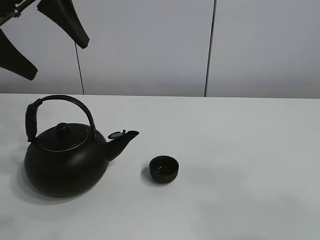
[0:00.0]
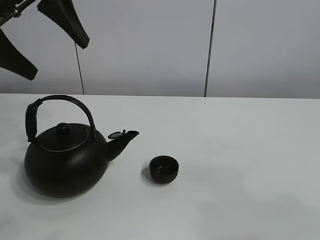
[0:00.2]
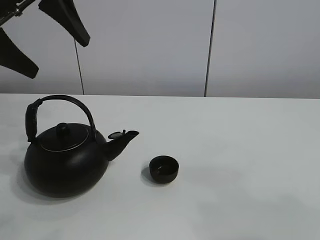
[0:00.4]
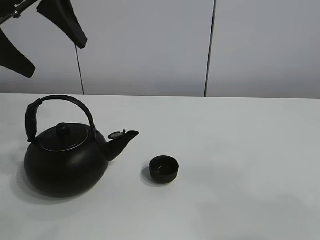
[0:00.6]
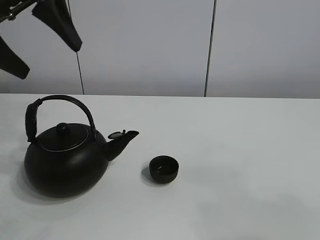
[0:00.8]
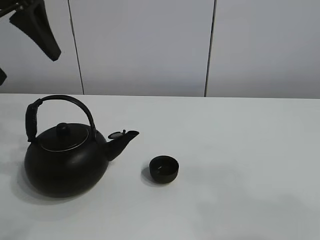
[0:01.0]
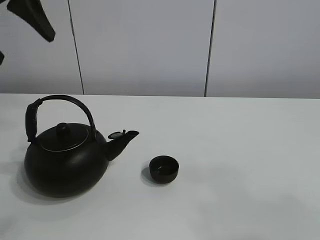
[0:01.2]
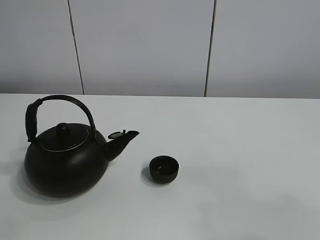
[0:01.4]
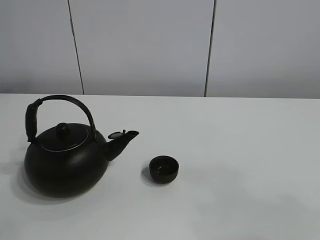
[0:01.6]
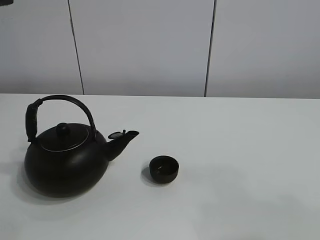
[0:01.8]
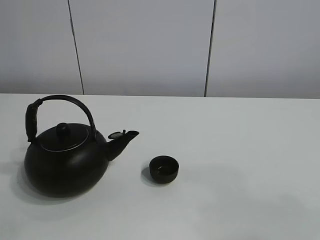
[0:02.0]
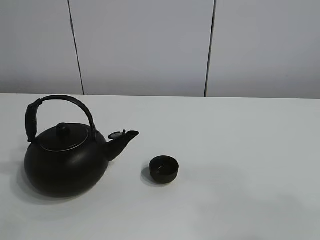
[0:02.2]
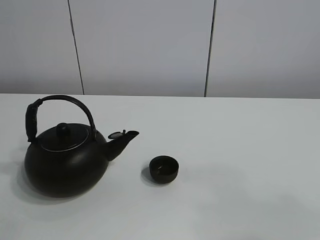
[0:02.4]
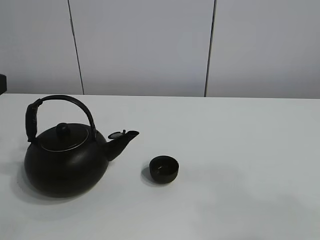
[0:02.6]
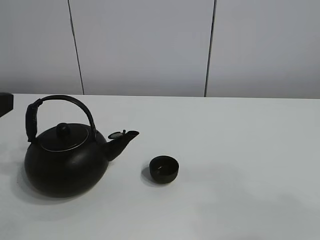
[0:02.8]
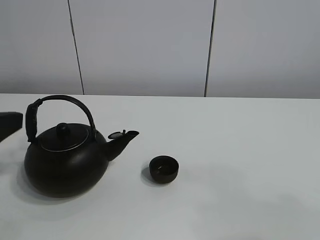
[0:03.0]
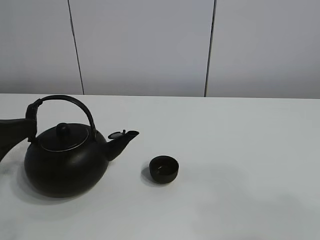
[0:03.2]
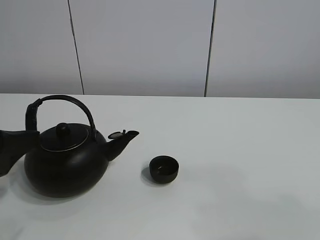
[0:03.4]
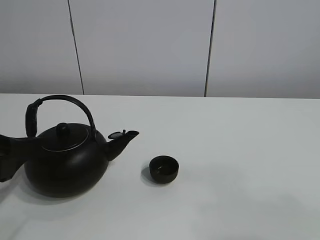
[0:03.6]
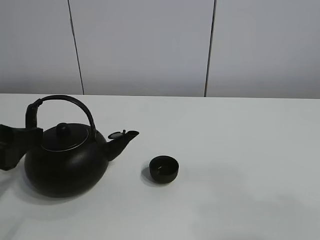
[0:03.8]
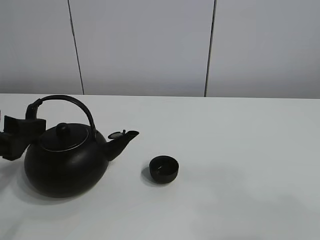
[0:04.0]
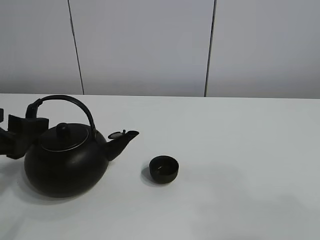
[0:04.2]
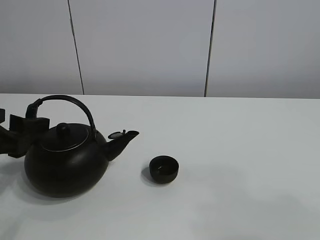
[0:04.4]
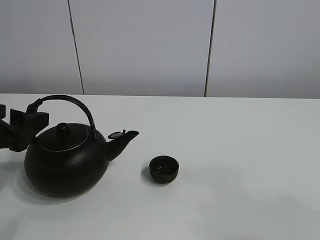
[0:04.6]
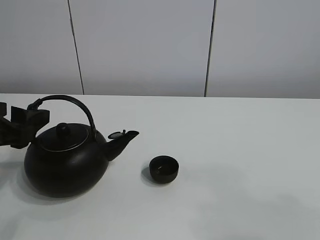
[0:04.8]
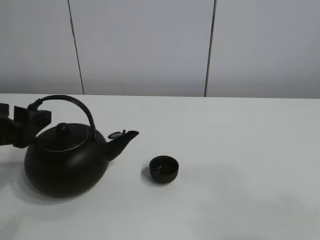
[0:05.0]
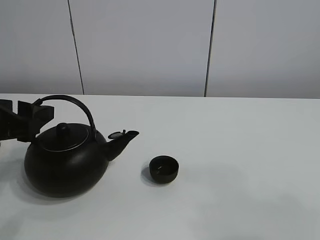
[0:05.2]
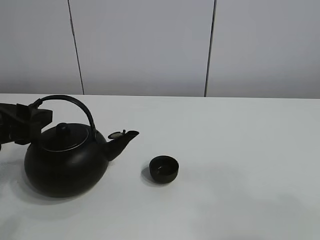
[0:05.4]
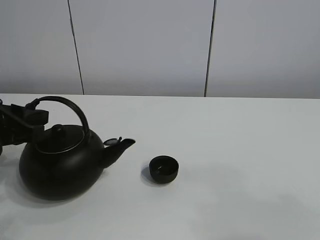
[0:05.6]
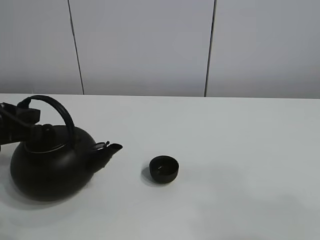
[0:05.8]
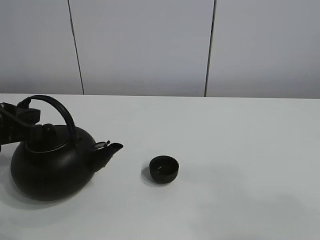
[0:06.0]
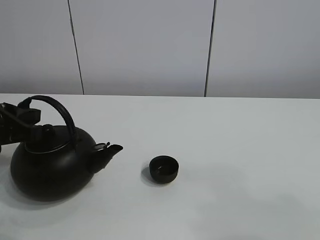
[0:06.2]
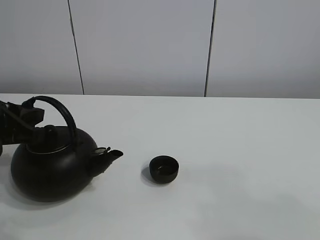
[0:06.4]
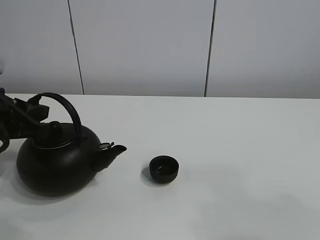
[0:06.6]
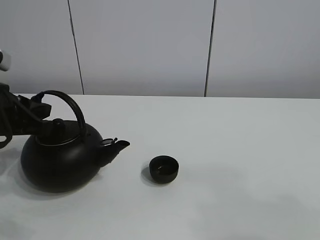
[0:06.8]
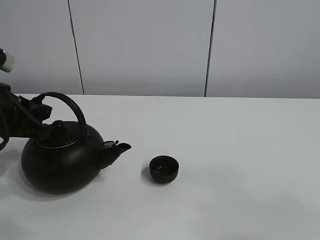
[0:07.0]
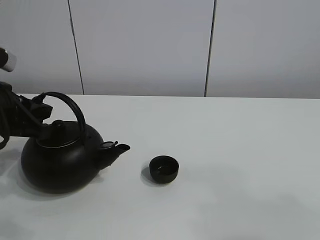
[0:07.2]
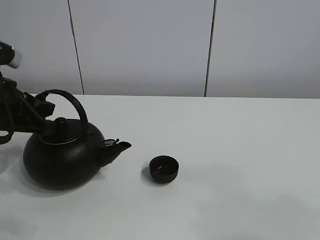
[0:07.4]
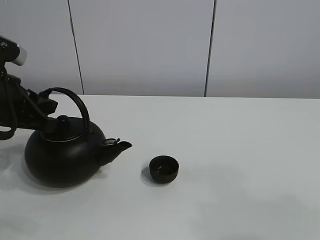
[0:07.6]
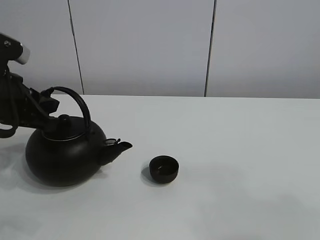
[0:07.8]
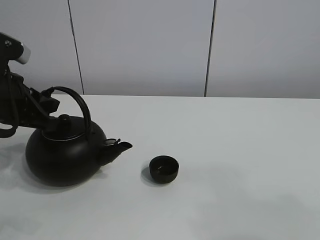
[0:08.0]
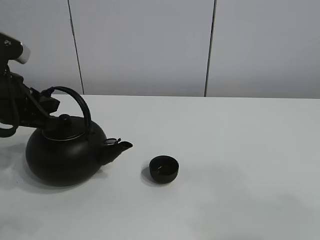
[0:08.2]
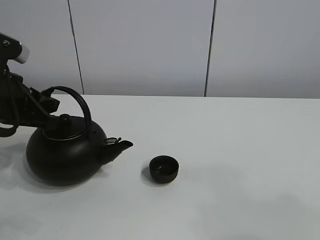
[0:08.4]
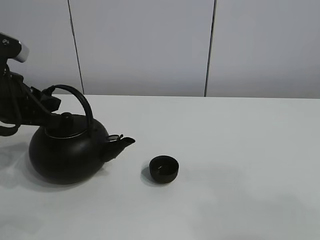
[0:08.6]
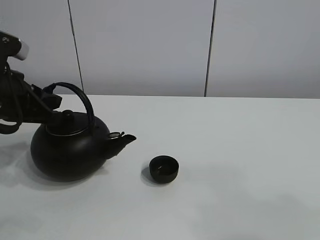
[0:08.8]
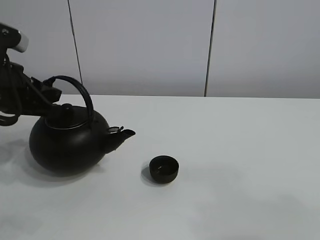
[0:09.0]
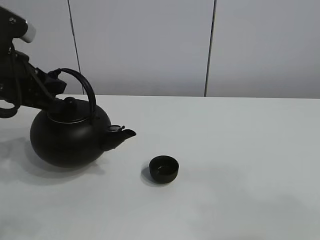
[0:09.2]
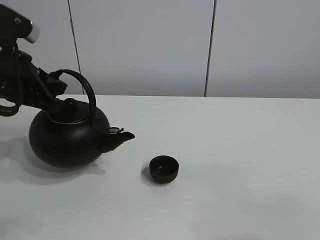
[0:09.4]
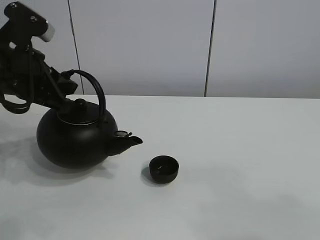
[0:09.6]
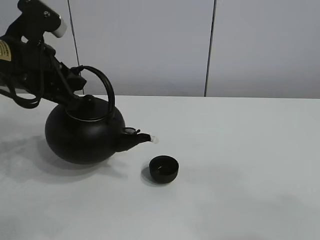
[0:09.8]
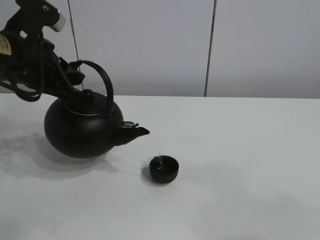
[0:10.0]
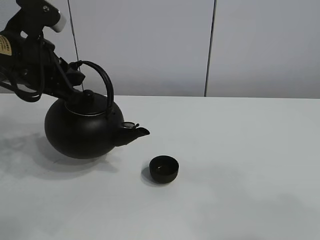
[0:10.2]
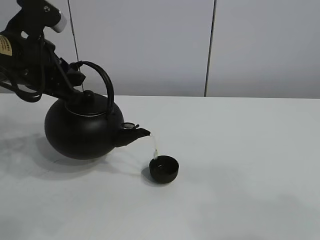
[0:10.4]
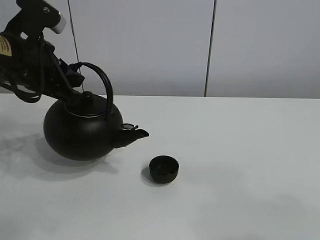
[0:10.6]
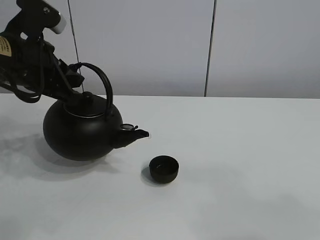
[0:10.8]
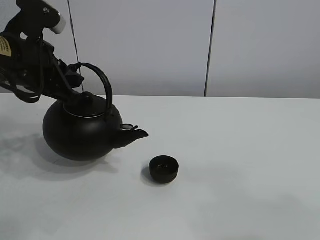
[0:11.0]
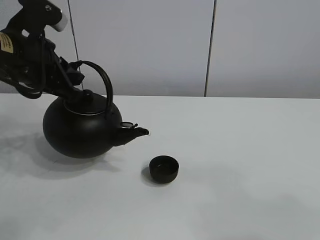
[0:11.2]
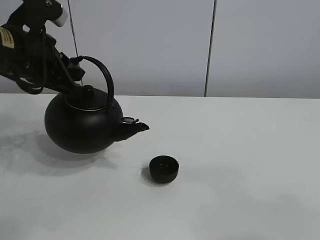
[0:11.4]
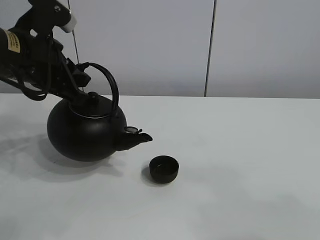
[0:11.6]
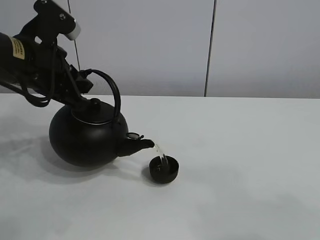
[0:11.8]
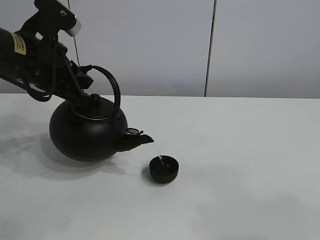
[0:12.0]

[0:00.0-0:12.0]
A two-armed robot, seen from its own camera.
Task of the whole recording: pour tea into the teacup.
Step, 0:00.0 to 0:08.8: Pick up the teapot with the left gripper.
0:00.0 to 0:01.6: The left gripper shifts some 5 cm to the left.
0:01.6 to 0:03.0: The left gripper heads downward and backward, covering some 20 cm.
0:03.0 to 0:04.4: The left gripper shifts by roughly 5 cm.
0:04.4 to 0:06.0: The left gripper closes its fingers.
0:06.0 to 0:07.6: The grippers move only a little.
0:07.6 to 0:09.0: The grippers make only small movements.
0:09.0 to 0:10.4: The left gripper moves approximately 5 cm.
0:10.4 to 0:12.0: The grippers make only small movements.

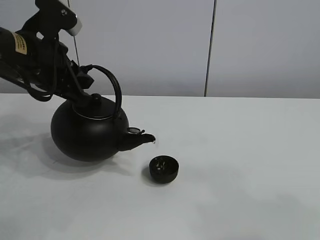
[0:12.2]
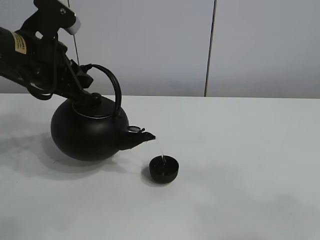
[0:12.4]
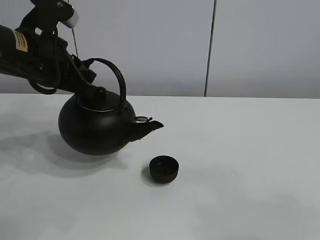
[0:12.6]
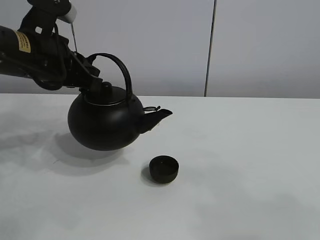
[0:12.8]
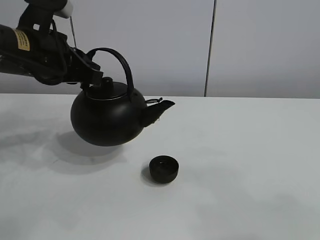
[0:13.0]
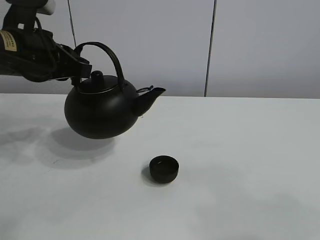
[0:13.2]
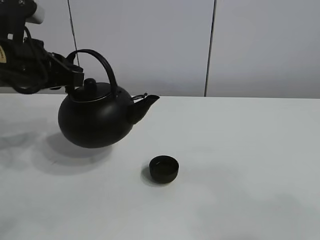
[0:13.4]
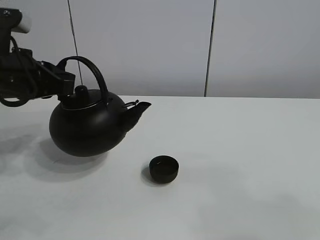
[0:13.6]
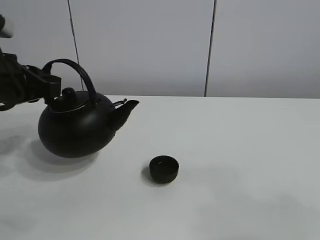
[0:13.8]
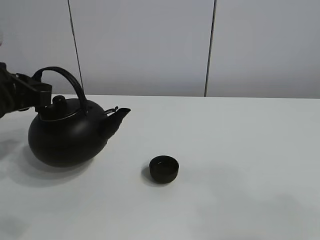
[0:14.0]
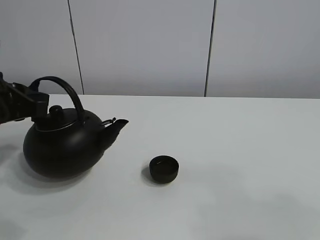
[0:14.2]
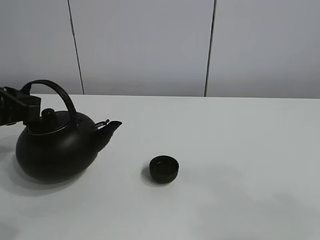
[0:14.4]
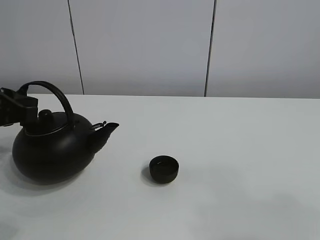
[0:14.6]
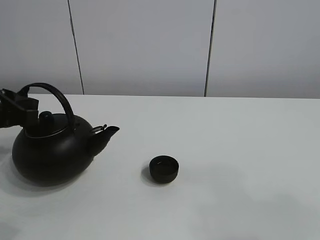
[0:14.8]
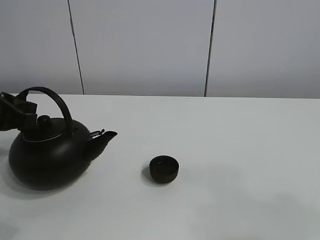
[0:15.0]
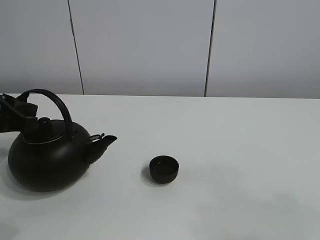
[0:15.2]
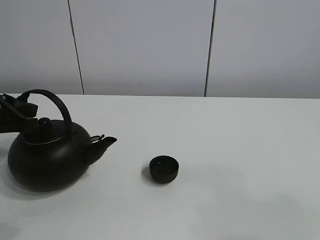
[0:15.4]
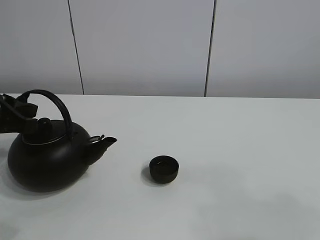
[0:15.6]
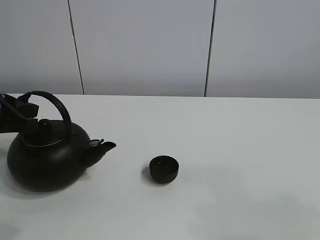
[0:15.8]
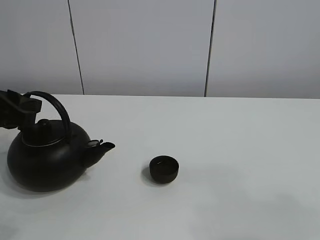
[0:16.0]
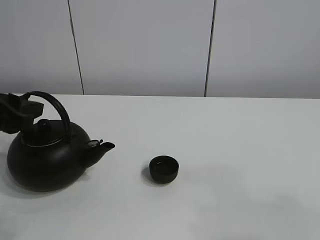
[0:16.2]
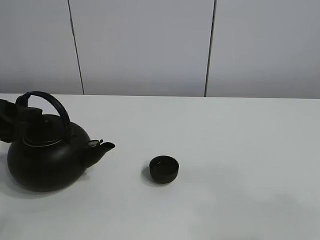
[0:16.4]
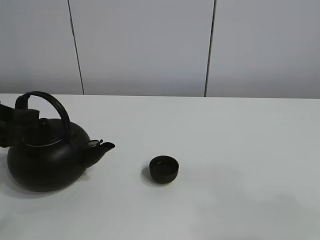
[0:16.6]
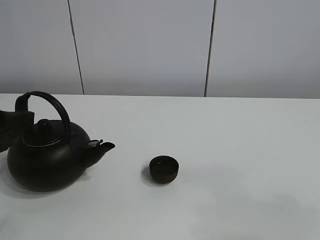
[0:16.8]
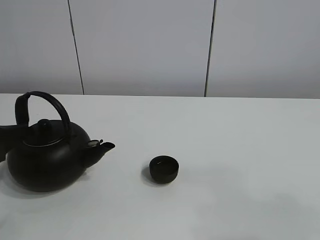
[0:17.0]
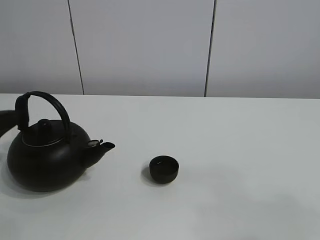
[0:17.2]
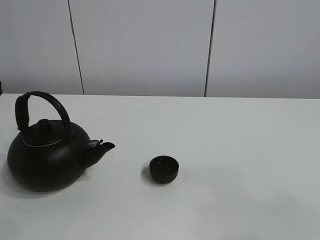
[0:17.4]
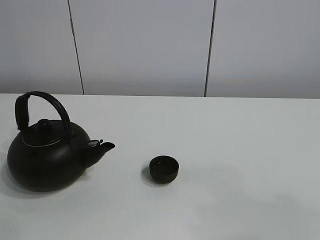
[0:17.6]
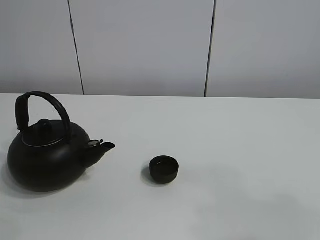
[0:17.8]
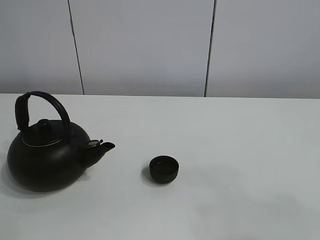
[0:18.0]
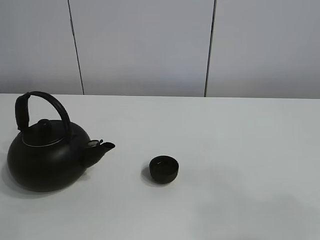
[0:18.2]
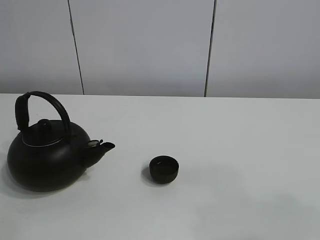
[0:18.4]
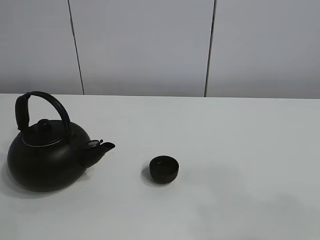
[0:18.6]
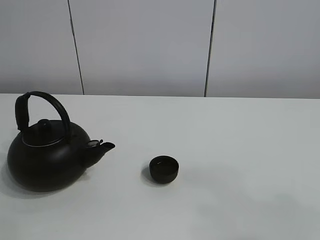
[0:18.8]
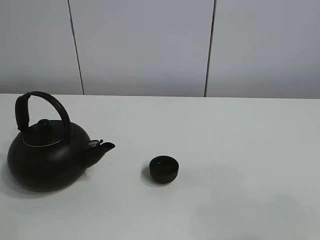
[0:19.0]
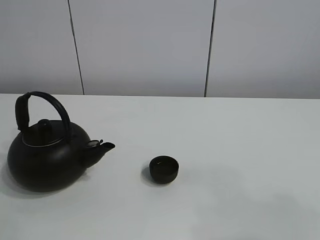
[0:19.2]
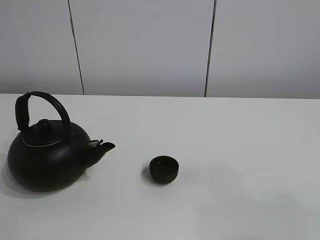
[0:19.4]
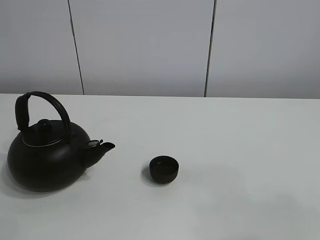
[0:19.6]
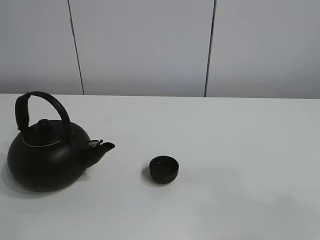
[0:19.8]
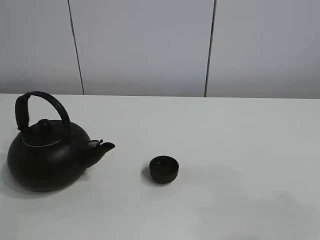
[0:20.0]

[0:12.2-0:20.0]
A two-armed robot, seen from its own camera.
Task of the whole recording: pour tea into the teacup.
0:12.2 to 0:13.8: The left gripper shifts roughly 5 cm to the left.
0:13.8 to 0:15.4: The grippers make only small movements.
0:15.4 to 0:16.8: The left gripper goes some 5 cm backward, and opens up.
0:16.8 to 0:18.4: The left gripper is displaced upward by roughly 25 cm.
